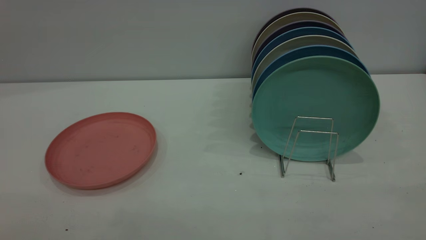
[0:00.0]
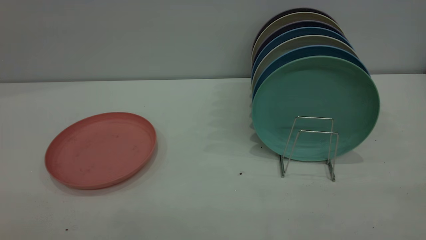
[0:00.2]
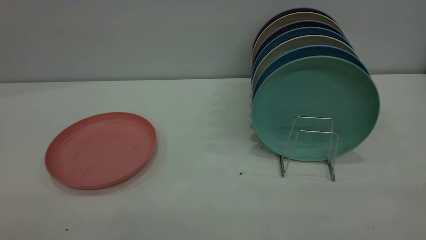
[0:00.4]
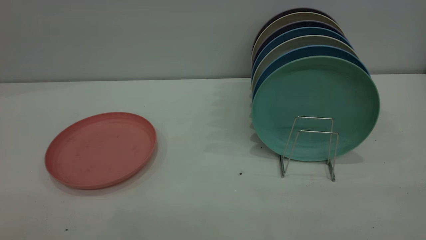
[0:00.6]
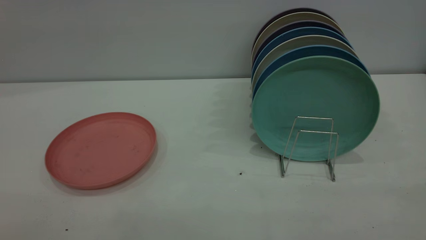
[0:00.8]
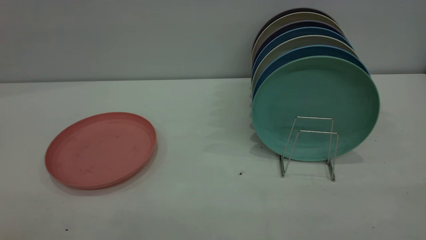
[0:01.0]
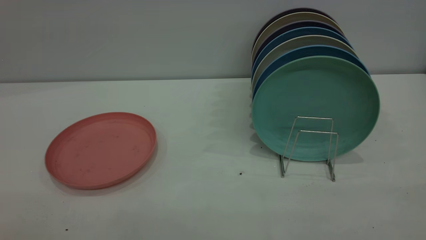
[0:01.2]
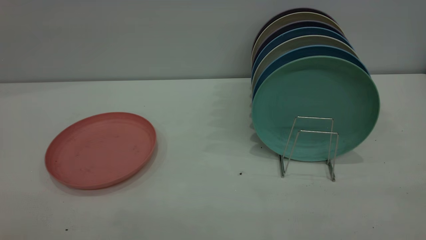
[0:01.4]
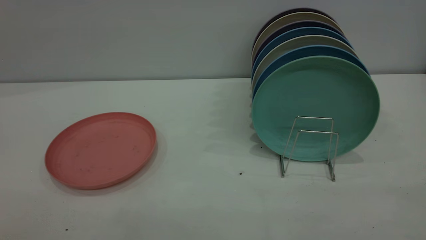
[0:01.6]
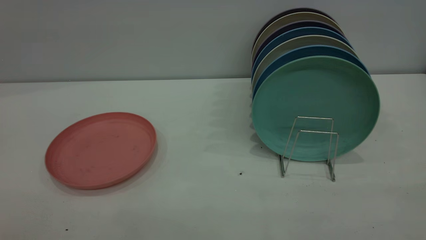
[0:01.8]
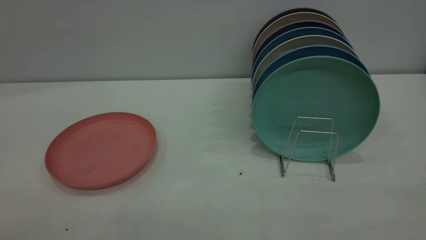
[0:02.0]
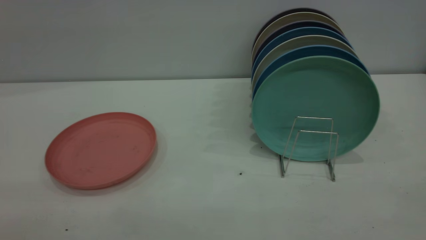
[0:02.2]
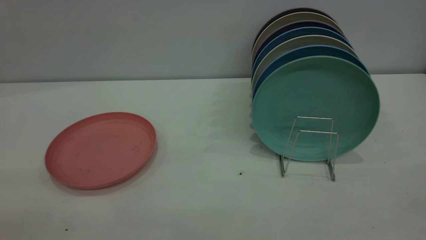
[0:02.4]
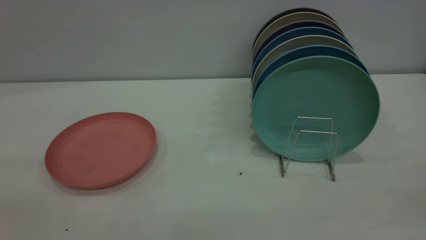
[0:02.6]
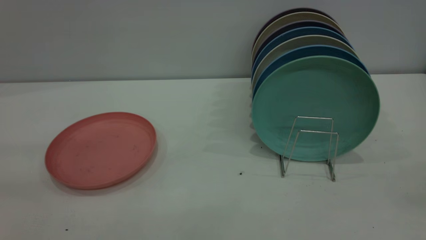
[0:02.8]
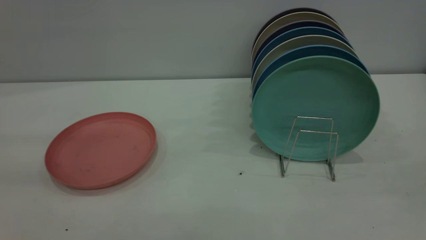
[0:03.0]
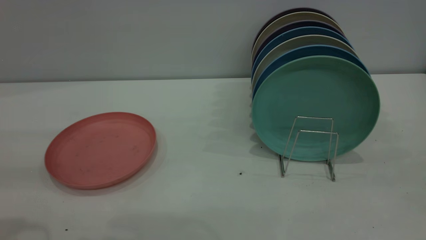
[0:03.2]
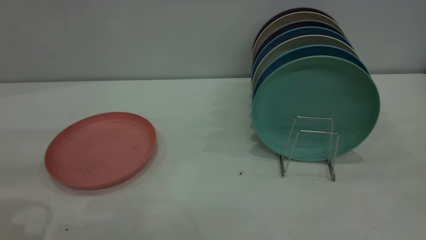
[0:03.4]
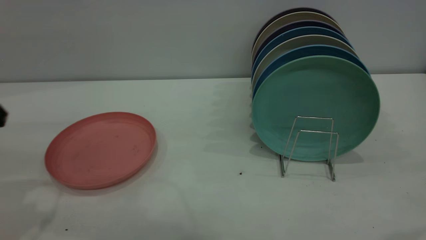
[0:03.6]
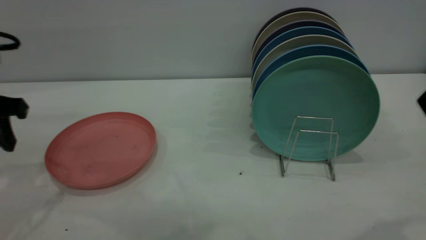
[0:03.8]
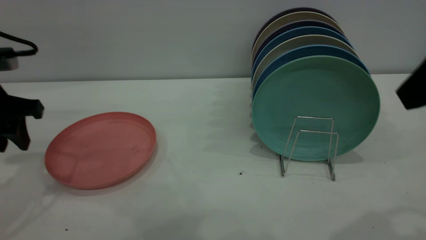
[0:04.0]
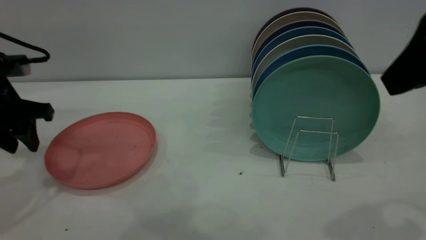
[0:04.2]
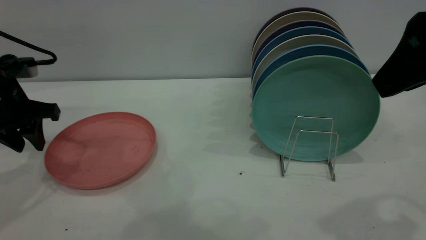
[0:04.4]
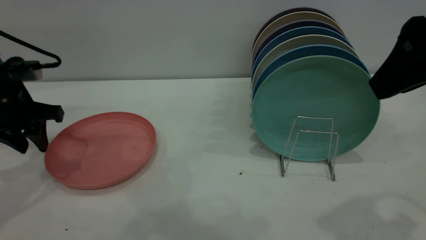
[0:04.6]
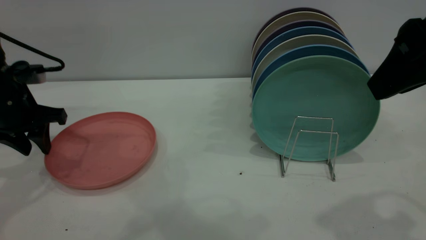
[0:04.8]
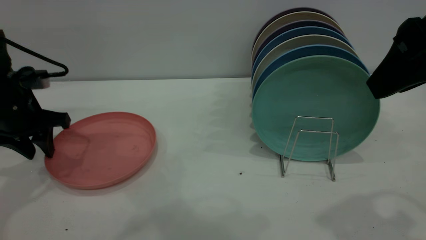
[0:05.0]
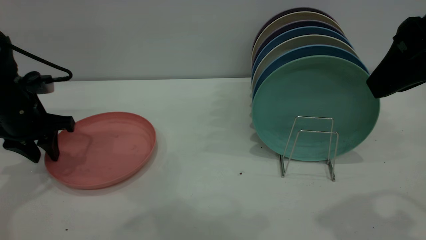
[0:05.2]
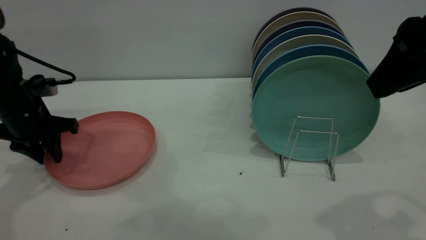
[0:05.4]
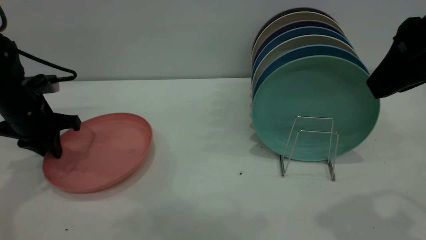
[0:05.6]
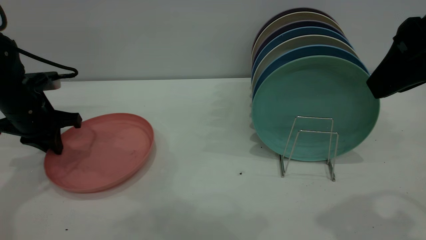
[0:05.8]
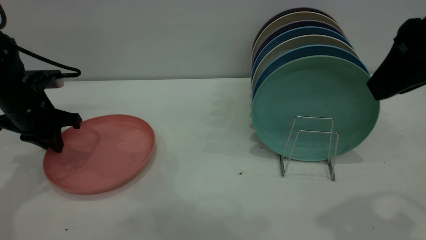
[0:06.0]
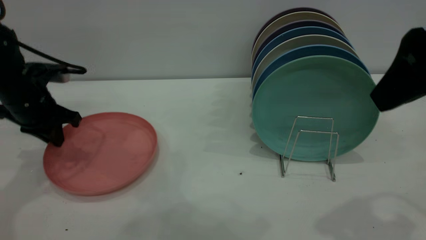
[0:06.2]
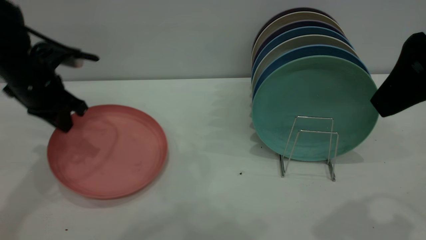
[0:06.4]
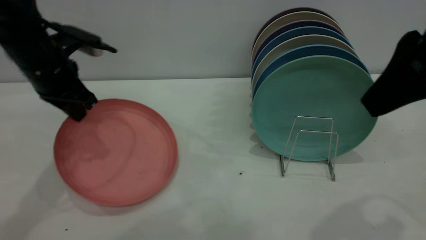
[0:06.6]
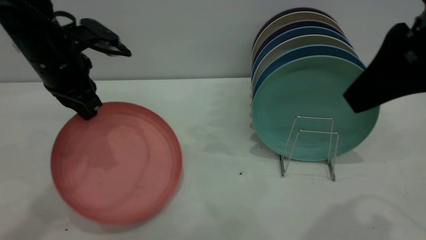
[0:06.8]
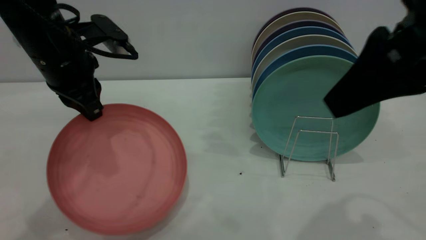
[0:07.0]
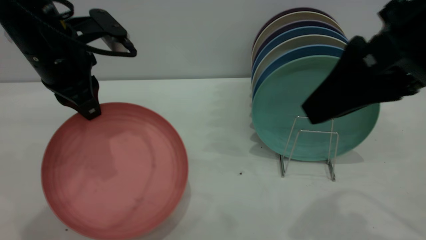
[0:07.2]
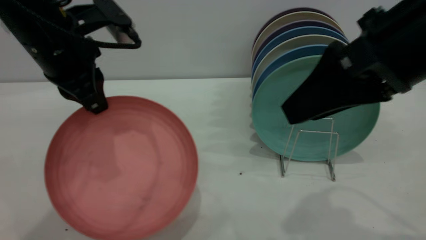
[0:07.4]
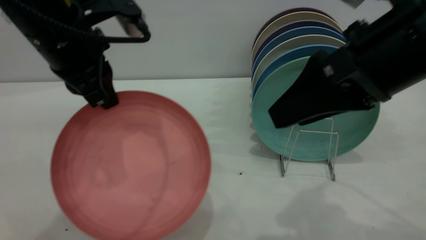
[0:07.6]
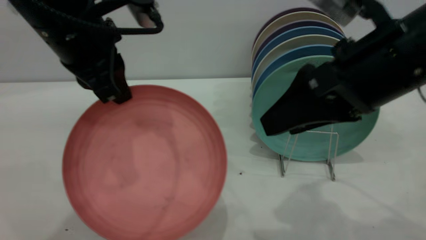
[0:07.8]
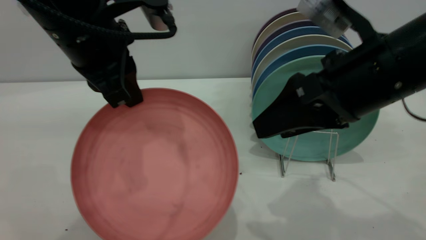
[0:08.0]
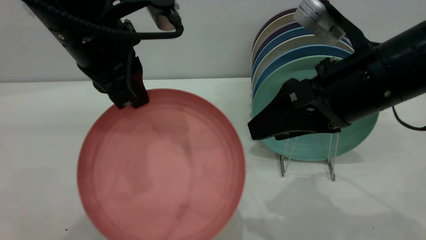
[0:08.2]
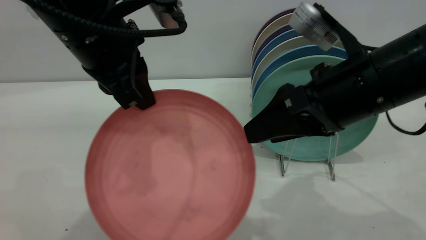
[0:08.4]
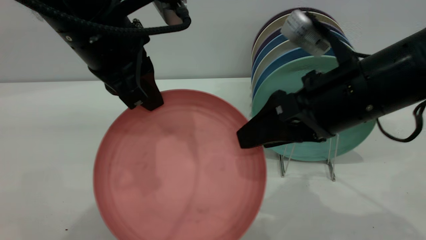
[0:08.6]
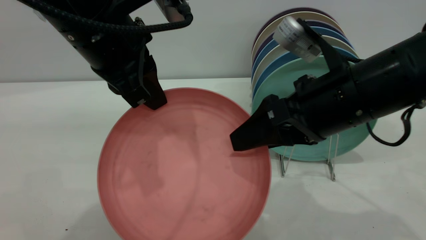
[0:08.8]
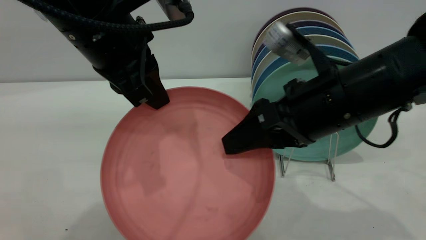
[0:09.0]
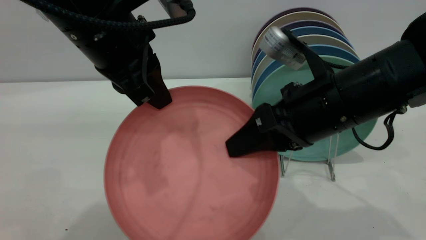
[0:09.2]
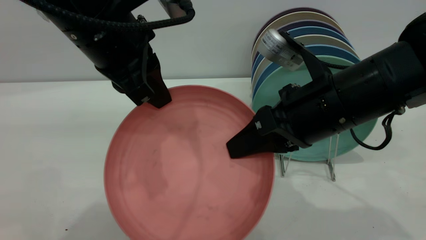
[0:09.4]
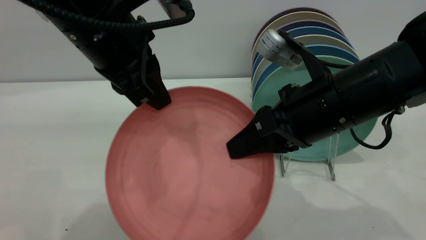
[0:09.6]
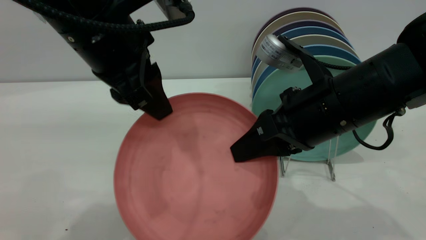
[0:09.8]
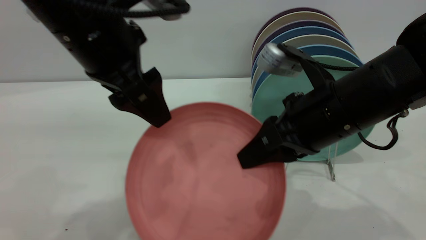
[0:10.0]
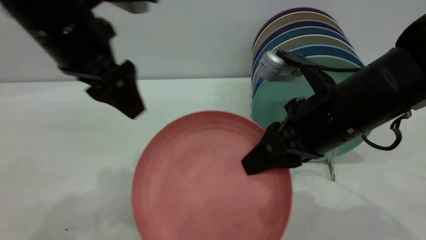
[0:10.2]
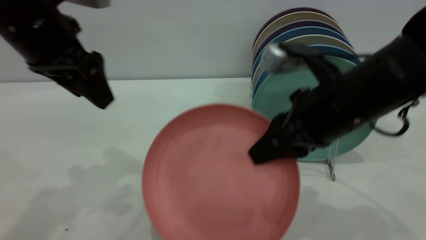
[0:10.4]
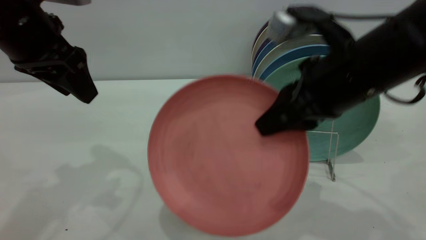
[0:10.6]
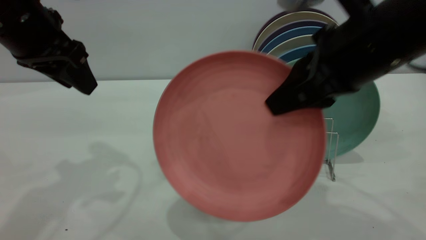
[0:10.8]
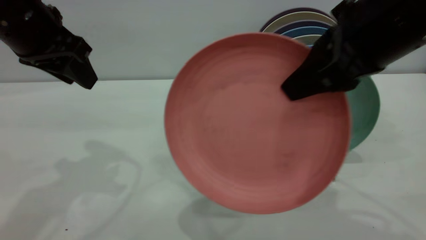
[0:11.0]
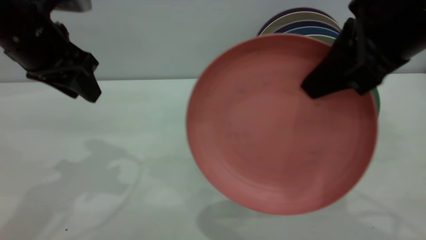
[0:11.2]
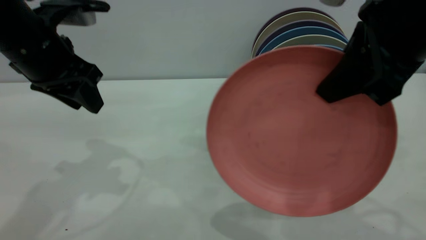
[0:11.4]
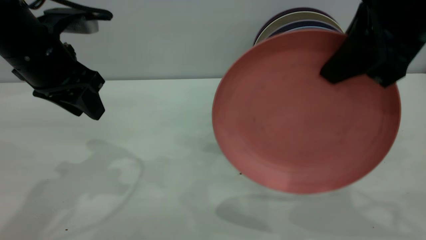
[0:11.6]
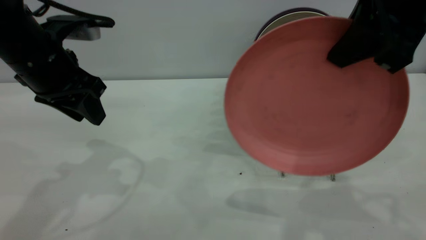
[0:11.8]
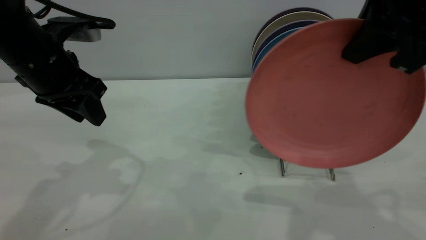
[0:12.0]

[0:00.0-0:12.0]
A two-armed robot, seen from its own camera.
Task of the whole recording: put the plate on the plate rack.
Step, 0:00.0 to 0:06.6: Pick up the plate with the left gripper.
Step, 0:06.8 to 0:10.0: Pass the plate from the left gripper to the right gripper.
0:00.0 to 0:01.6: Neither gripper changes place.
0:03.0 to 0:04.4: The left gripper goes about 25 cm forward and downward. Meanwhile the right gripper is displaced forward and to the left by approximately 15 cm.
0:04.4 to 0:06.0: The left gripper ends up approximately 5 cm from where it was, and closes its fingers.
0:06.0 to 0:07.6: The left gripper is displaced to the right, upward and backward by approximately 25 cm. The right gripper goes roughly 5 cm downward, and opens its fingers.
0:07.6 to 0:09.0: The left gripper moves approximately 5 cm. Meanwhile the right gripper travels downward by approximately 10 cm.
0:09.0 to 0:10.4: The right gripper closes up; the left gripper goes roughly 10 cm to the left, and opens.
0:10.4 to 0:12.0: The left gripper shifts some 5 cm downward. The right gripper travels upward by approximately 15 cm.

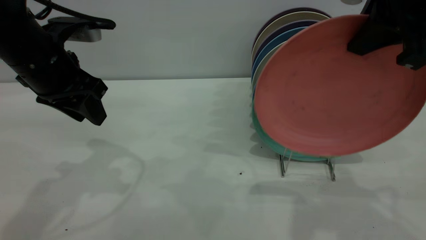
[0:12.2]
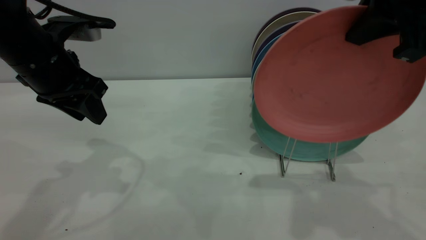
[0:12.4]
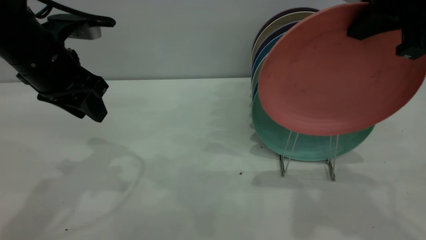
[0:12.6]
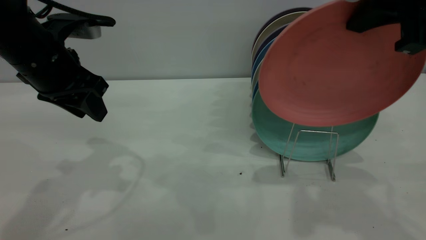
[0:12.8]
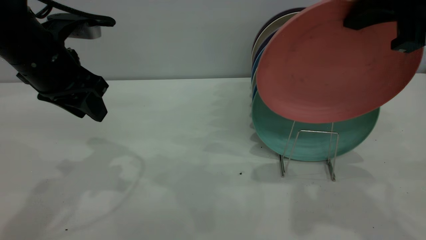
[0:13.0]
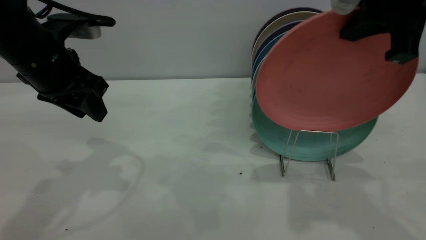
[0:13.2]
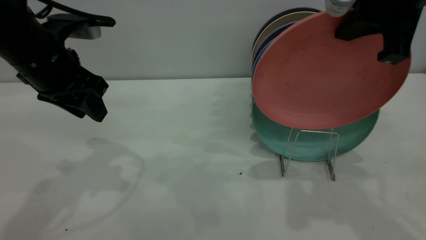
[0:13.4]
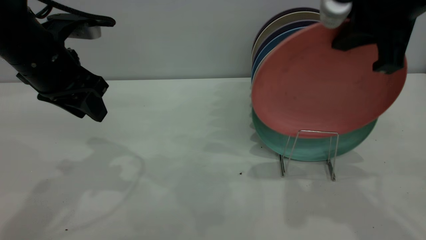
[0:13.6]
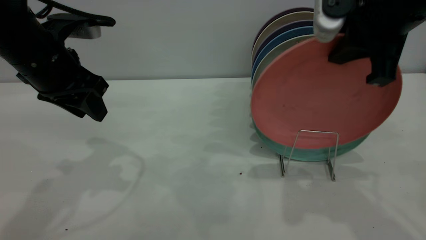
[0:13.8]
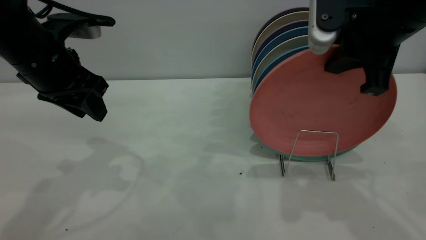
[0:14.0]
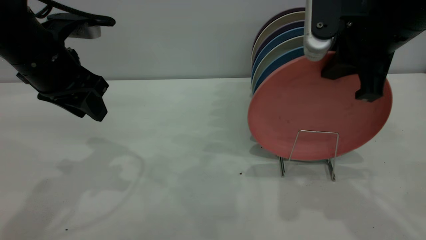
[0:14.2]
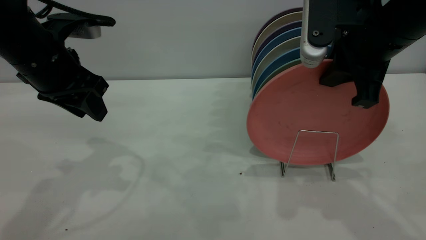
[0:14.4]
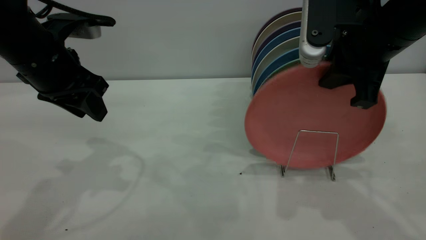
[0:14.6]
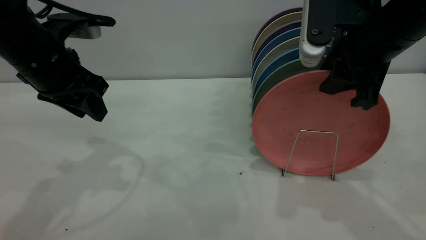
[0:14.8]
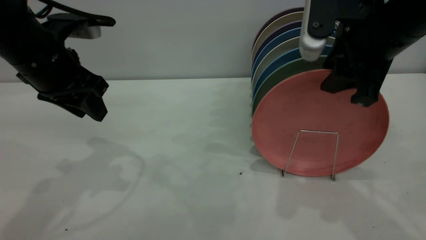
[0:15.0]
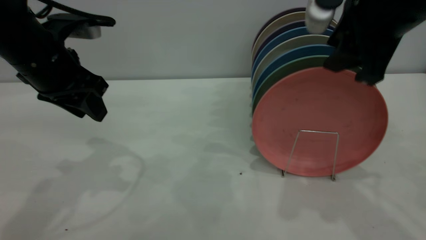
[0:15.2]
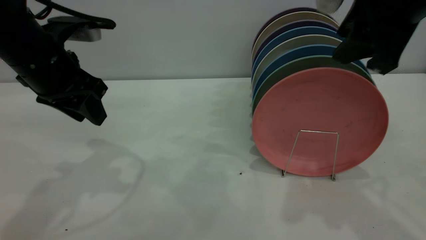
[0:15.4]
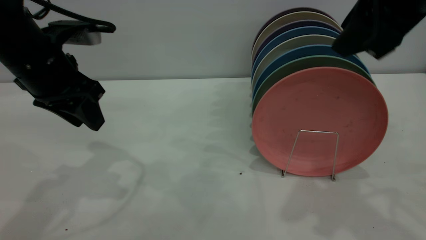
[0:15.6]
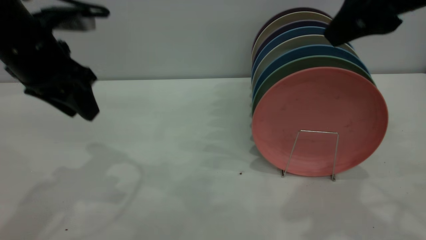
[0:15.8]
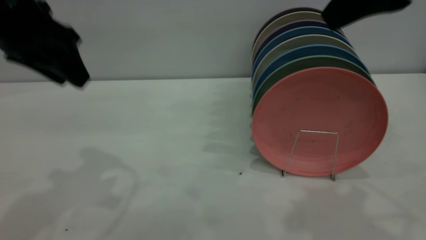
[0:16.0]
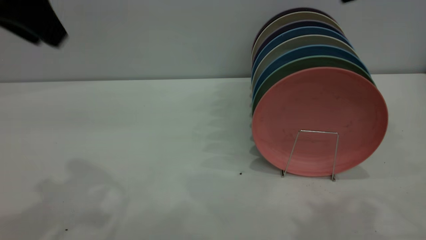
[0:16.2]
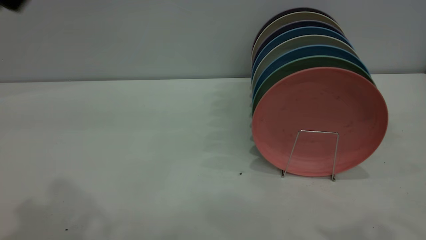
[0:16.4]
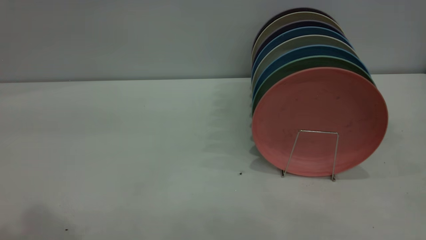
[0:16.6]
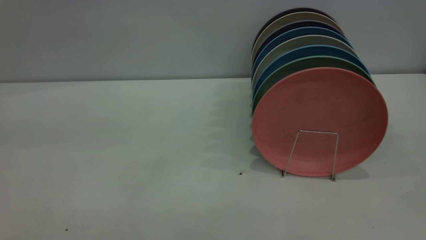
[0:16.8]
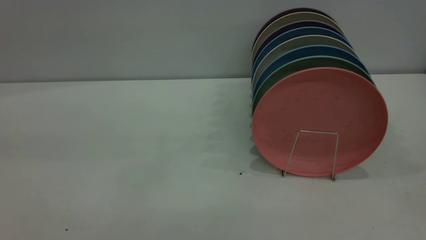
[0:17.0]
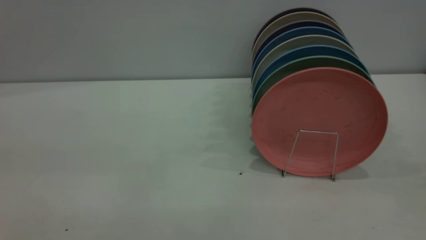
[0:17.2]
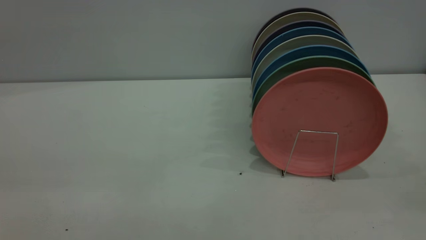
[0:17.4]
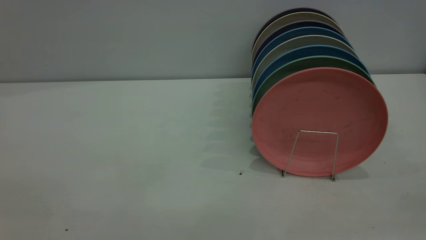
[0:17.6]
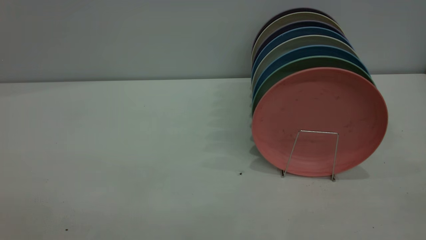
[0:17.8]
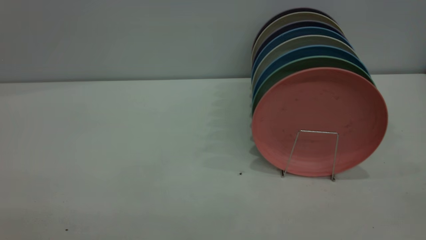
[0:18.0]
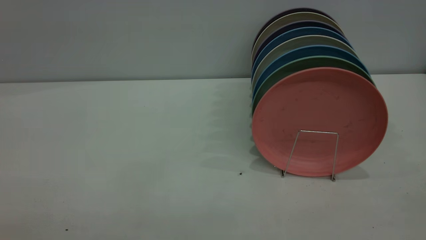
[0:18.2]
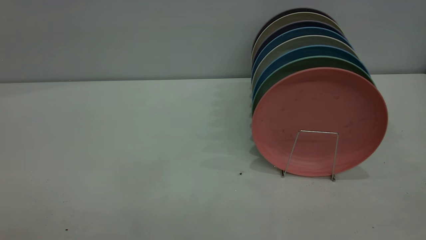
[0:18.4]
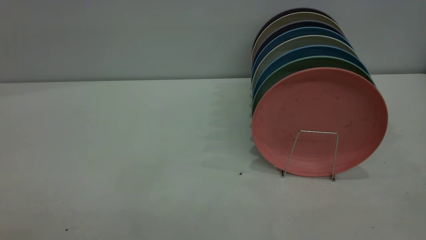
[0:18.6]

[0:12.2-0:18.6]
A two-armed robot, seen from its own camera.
Task of the whole recording: put the plate on the plate rack.
Step, 0:12.2 to 0:15.8: Place the plate on the shelf.
0:12.2 to 0:13.8: The grippers make only small movements.
0:13.8 to 0:15.4: The right gripper opens its fingers.
0:15.4 to 0:17.0: The right gripper shifts some 25 cm backward and upward, while the left gripper shifts about 35 cm upward and backward.
